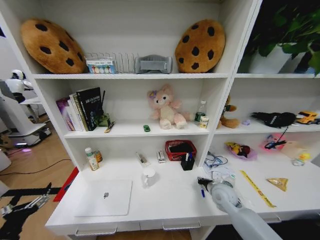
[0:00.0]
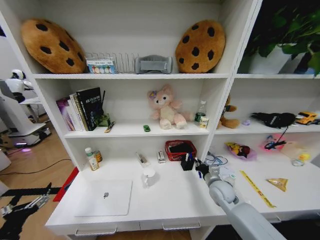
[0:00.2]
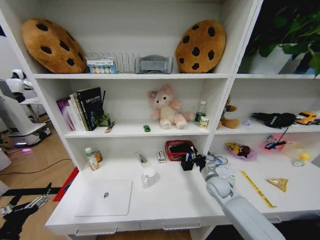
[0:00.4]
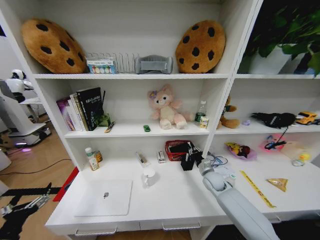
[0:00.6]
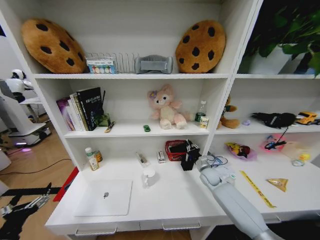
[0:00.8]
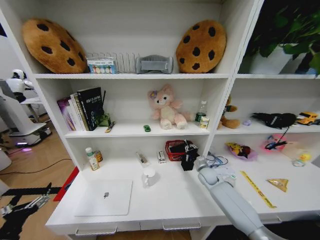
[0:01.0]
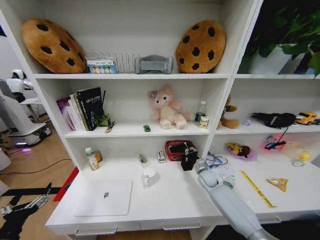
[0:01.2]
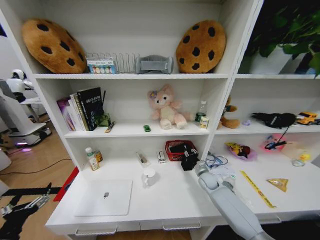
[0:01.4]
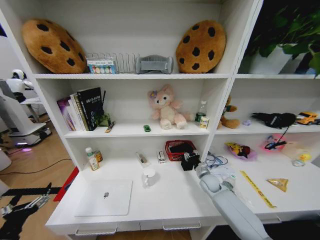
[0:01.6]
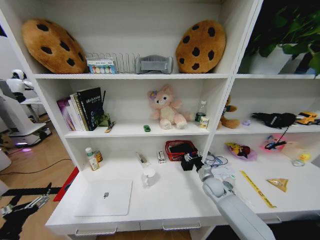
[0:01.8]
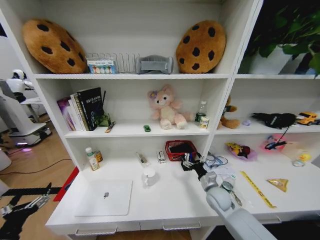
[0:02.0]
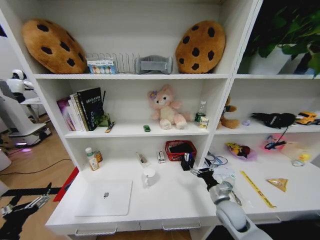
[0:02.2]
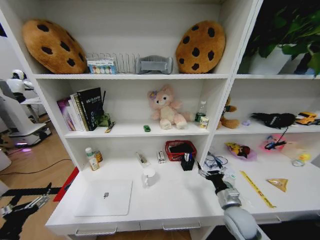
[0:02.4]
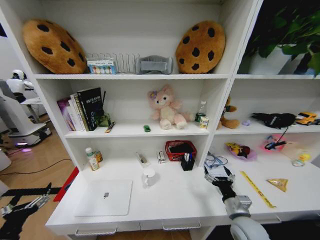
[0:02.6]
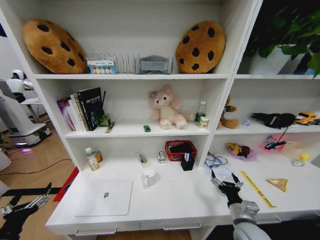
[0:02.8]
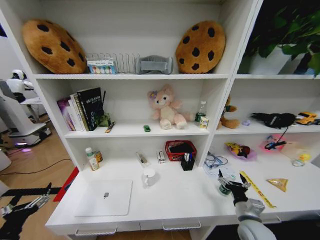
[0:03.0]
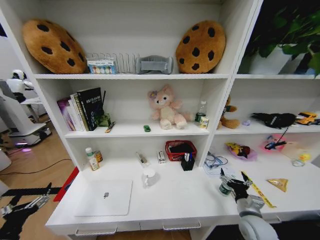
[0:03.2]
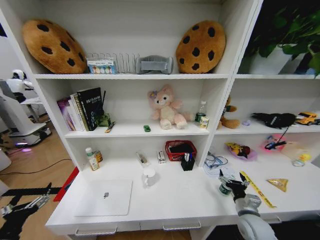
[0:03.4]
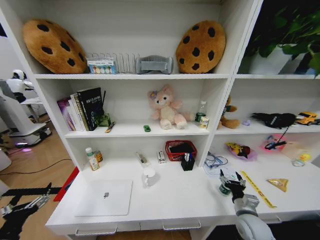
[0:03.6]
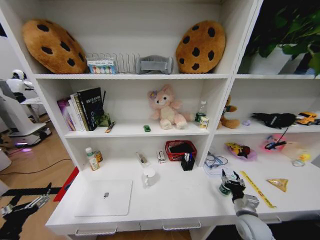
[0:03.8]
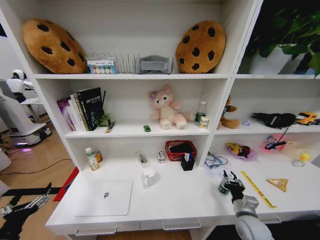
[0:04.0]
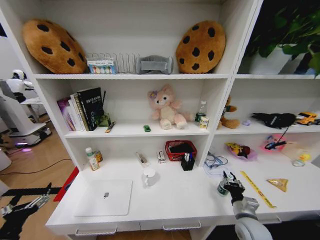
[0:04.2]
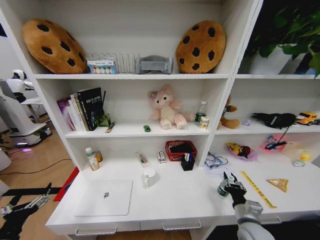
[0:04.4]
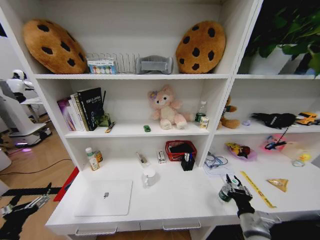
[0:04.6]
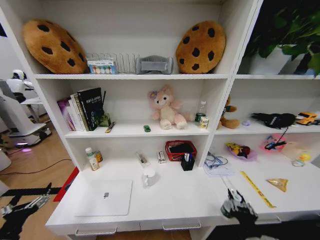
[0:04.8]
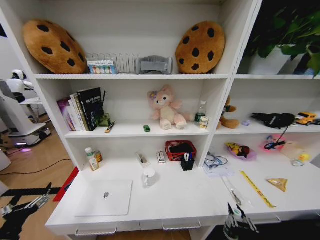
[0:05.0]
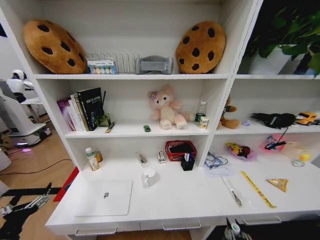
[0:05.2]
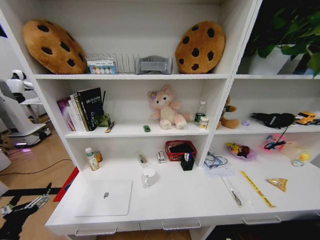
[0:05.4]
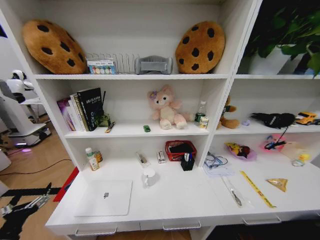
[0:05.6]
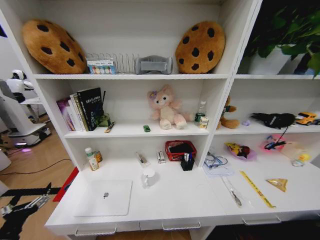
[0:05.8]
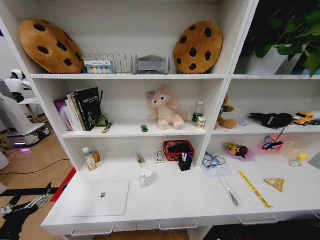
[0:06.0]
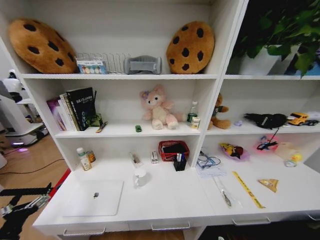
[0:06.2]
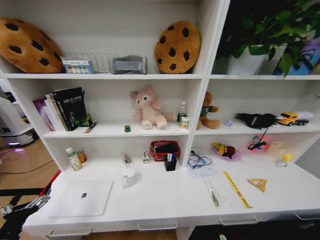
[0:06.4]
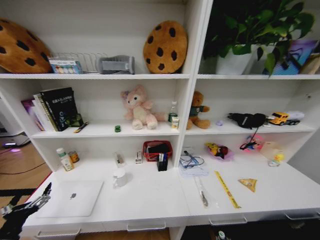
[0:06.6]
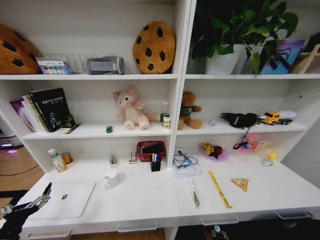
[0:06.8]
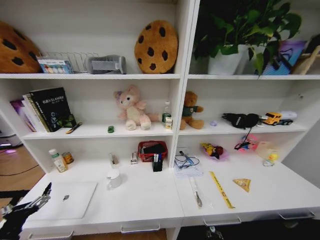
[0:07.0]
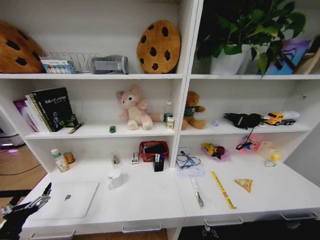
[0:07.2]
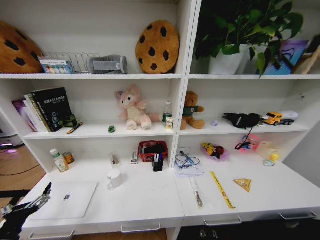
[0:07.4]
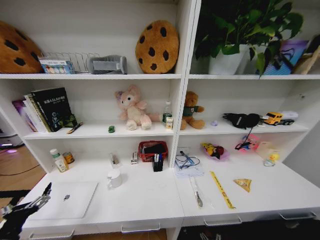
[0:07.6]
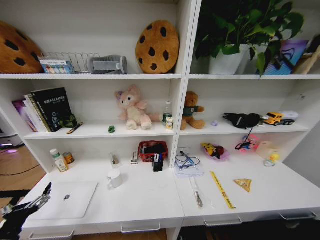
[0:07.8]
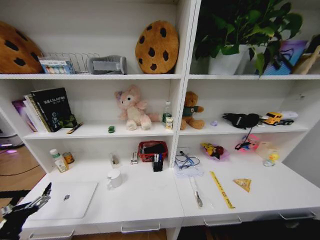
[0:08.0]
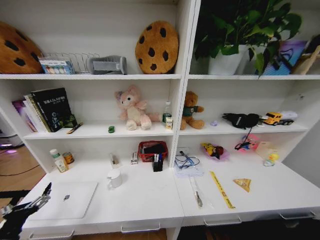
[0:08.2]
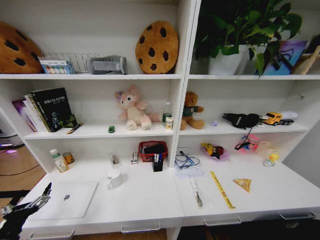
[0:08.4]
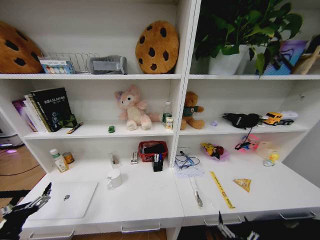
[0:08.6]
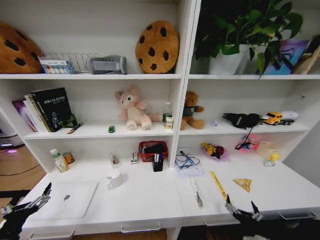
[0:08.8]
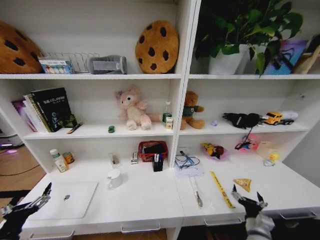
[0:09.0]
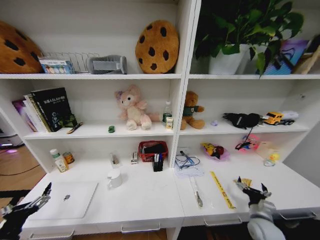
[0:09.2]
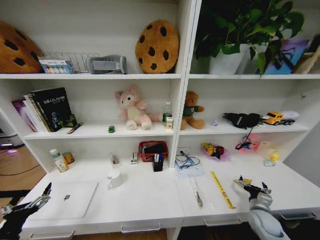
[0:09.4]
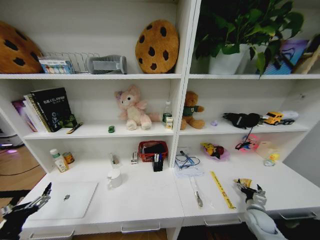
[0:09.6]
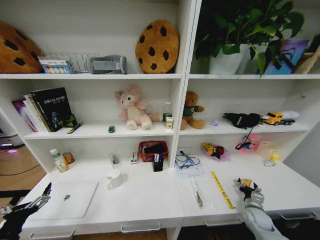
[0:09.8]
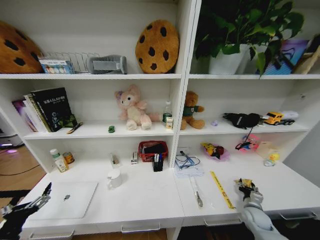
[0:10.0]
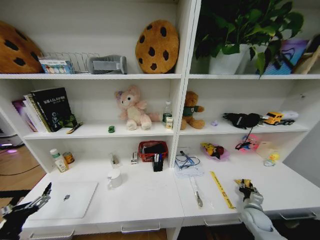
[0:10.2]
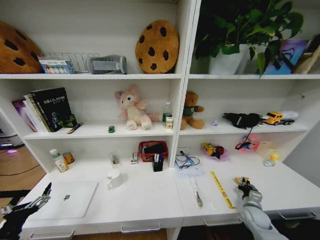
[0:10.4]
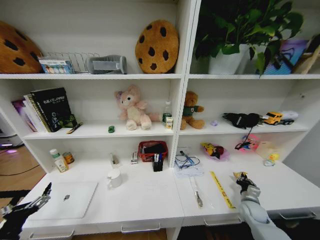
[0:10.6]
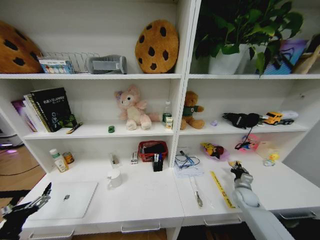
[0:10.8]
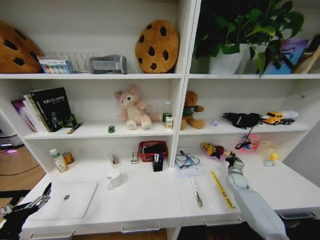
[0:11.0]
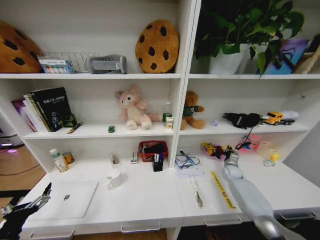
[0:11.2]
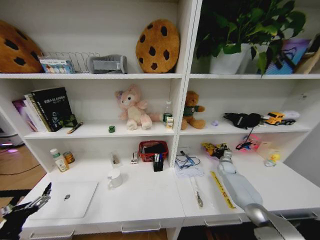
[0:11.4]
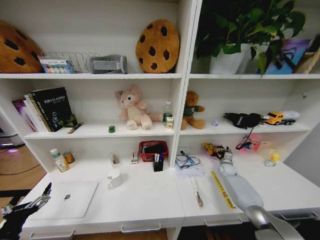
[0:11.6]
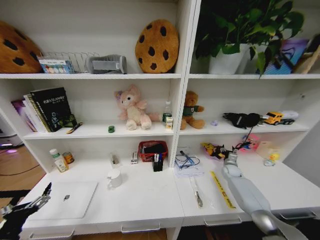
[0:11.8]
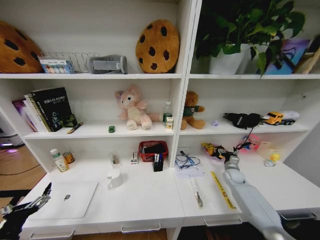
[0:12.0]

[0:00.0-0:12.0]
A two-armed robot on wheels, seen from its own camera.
Task of the whole recording: Organize the objects on the table.
0:00.0 to 0:01.6: The right gripper is displaced forward and downward by roughly 10 cm, and opens up.
0:01.6 to 0:03.0: The right gripper shifts about 25 cm backward, and opens up.
0:03.0 to 0:04.4: The right gripper closes its fingers.
0:04.4 to 0:06.0: The right gripper moves downward and backward, about 30 cm.
0:06.0 to 0:07.6: The right gripper moves downward and forward, some 10 cm, and opens up.
0:07.6 to 0:09.0: The right gripper heads upward, covering roughly 25 cm, and travels backward and back again, some 20 cm each way.
0:09.0 to 0:10.4: The right gripper is displaced forward and to the right by some 15 cm, and closes its fingers.
0:10.4 to 0:12.0: The right gripper travels forward by about 15 cm, and opens.

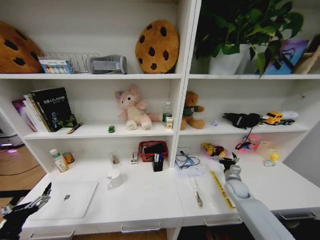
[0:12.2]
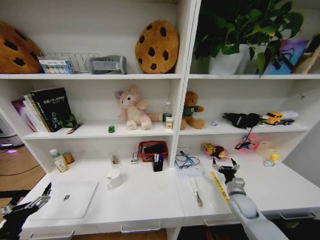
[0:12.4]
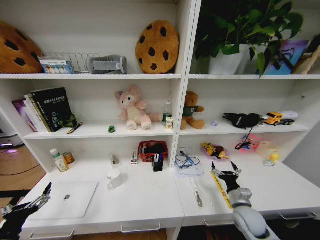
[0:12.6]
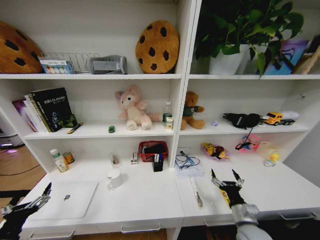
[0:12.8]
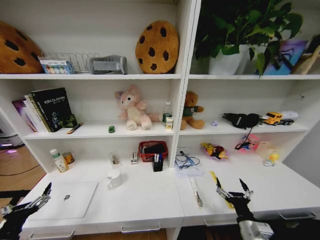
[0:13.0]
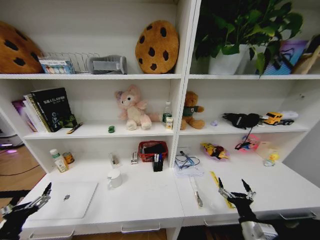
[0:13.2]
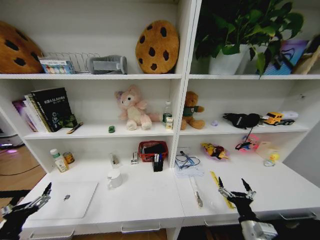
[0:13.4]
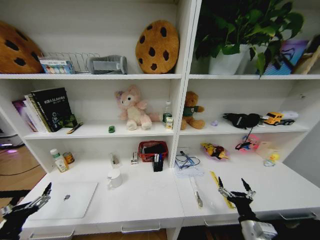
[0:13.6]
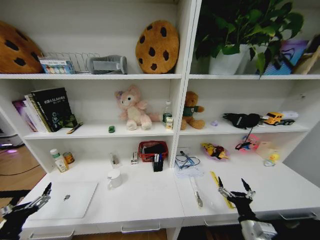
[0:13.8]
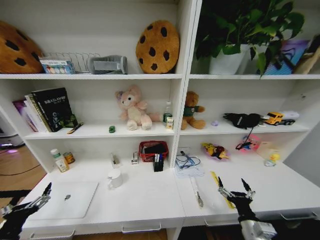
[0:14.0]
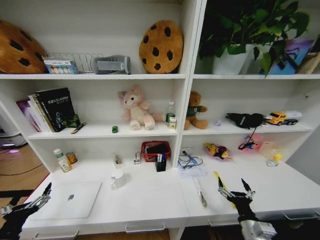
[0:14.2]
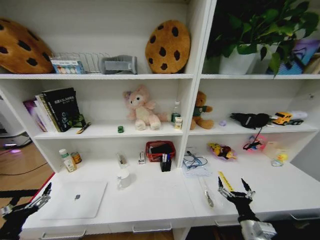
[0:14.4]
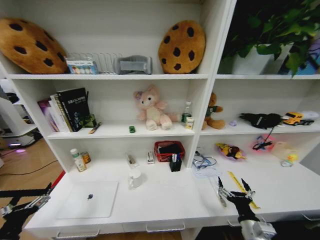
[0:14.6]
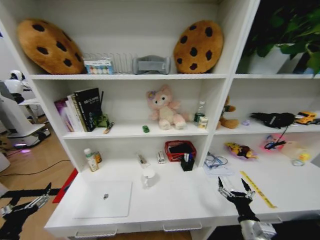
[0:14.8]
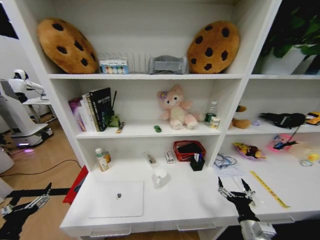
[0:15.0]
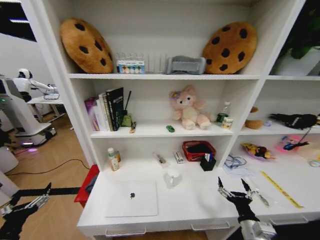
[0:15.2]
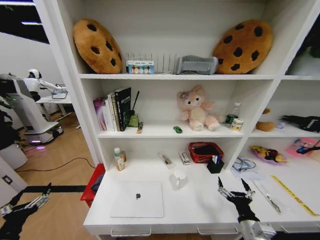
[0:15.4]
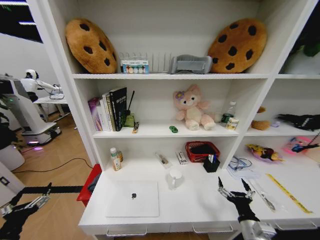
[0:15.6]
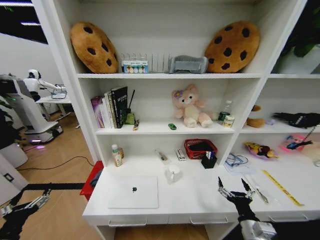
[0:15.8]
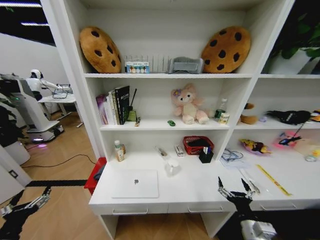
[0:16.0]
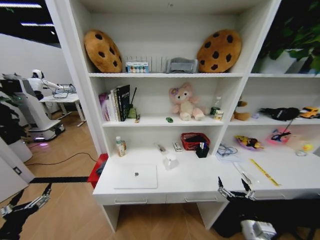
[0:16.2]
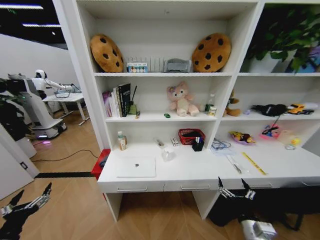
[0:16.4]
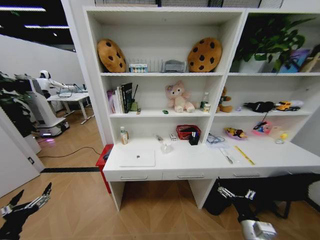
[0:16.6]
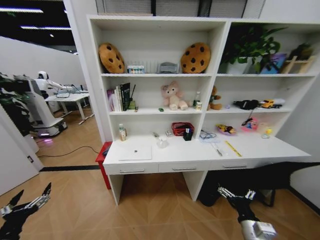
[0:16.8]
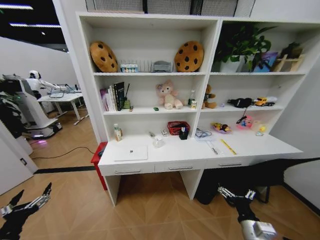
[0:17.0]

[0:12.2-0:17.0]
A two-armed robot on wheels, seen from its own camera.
Task of the whole recording: Organize the objects on the table.
0:12.2 to 0:13.8: The right gripper travels backward by some 25 cm.
